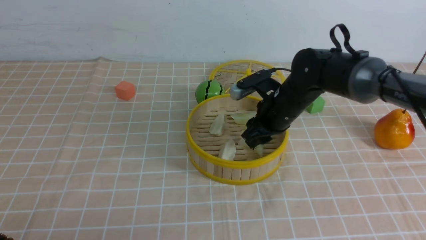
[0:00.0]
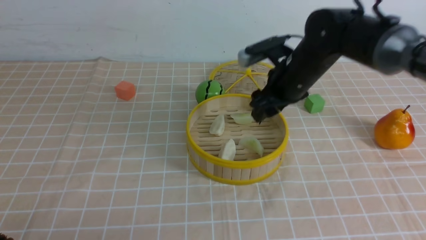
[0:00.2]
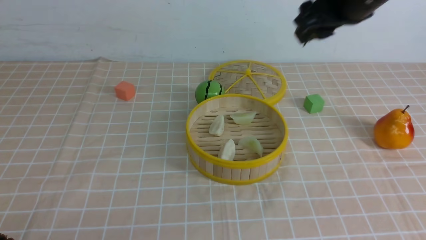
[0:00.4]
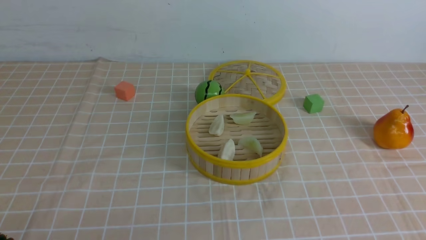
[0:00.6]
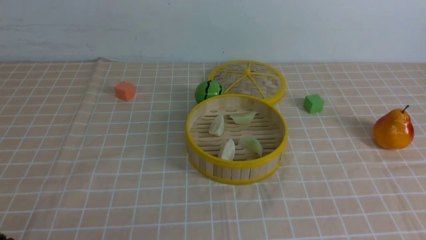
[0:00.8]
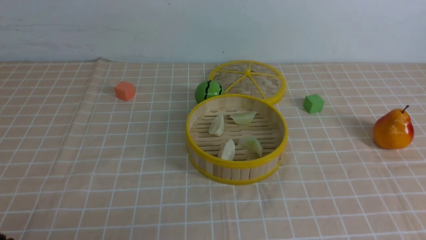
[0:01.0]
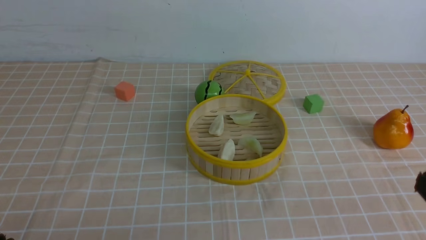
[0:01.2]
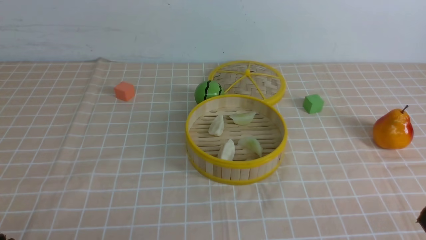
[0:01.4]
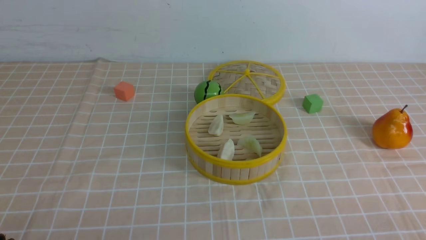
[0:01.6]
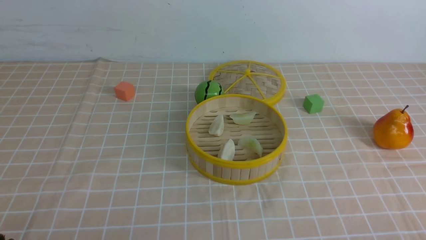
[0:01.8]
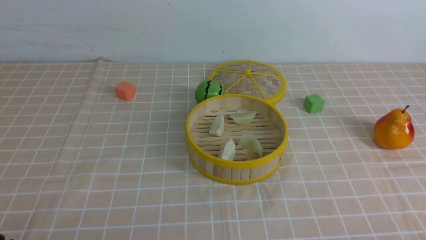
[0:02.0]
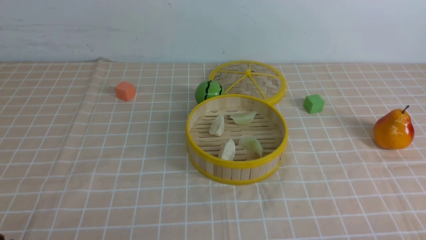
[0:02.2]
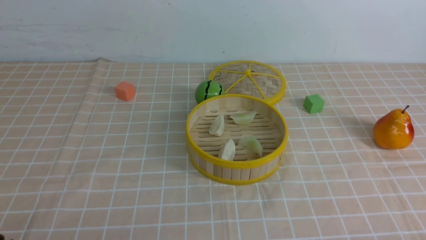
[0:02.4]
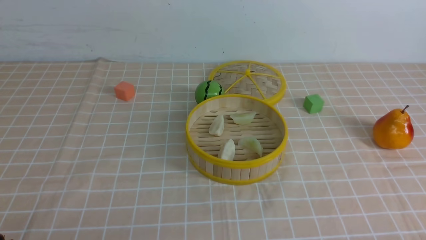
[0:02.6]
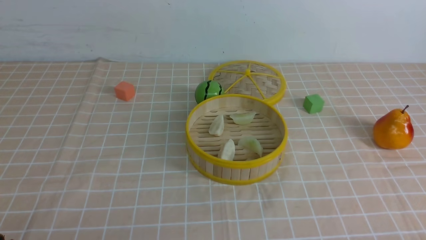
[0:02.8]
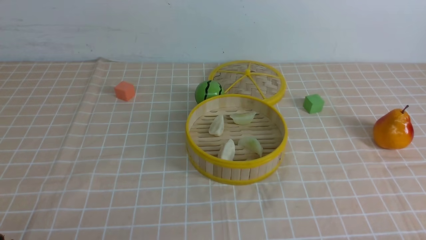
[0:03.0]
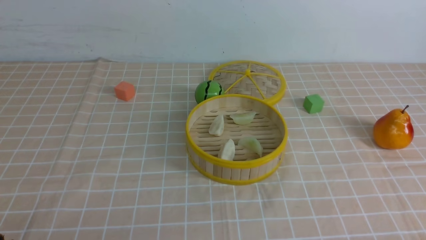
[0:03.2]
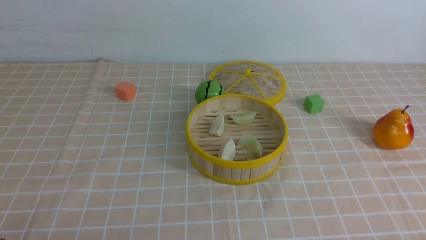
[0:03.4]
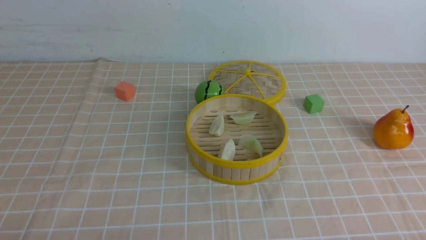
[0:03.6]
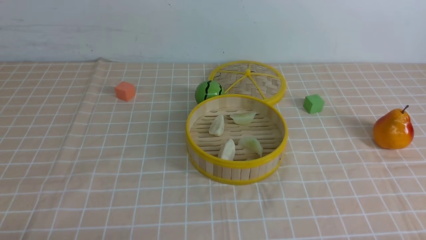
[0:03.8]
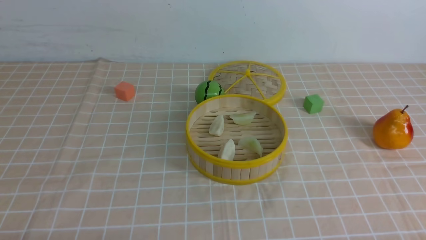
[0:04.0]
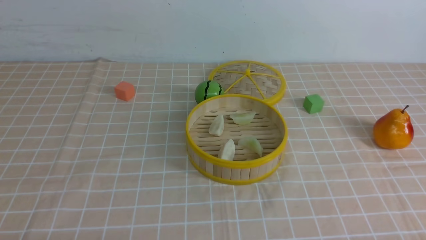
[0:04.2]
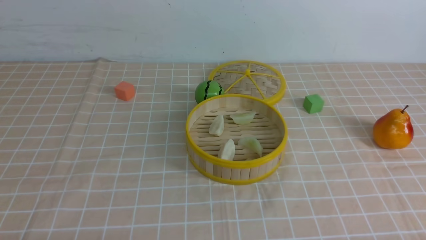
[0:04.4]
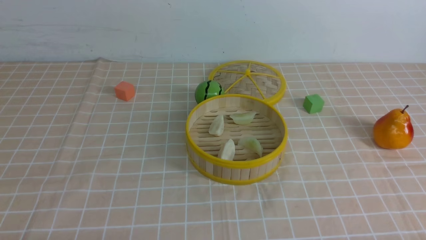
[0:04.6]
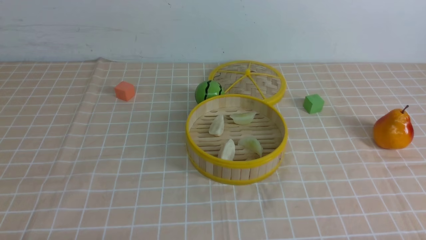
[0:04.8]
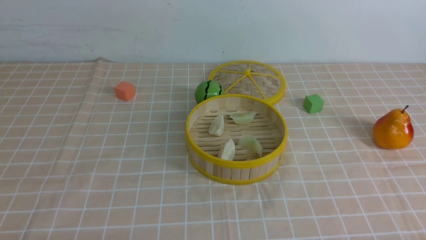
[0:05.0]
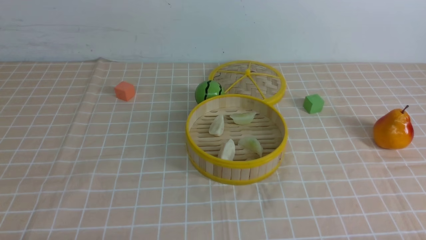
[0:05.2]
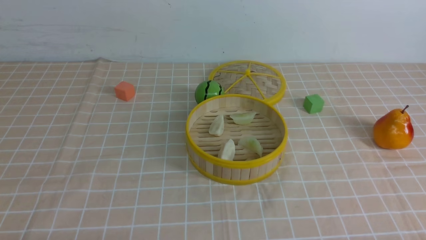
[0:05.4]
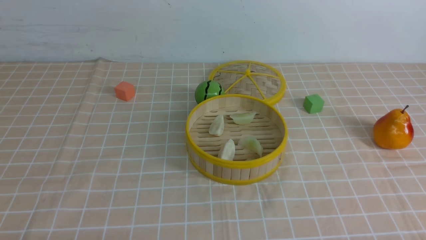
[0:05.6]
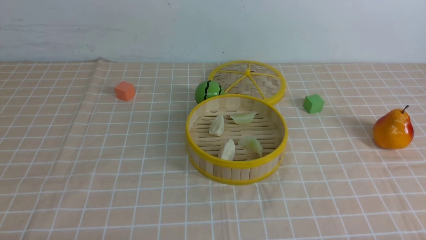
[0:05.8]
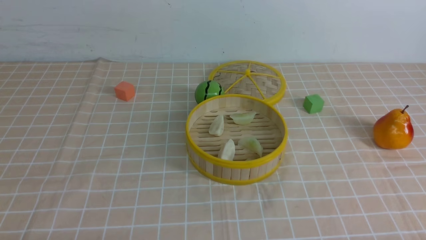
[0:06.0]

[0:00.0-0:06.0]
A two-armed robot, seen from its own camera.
Task of the whole recording: put the dumplings into the steamer on the table with the brown tablecloth.
0:00.0 to 0:01.6: The right gripper travels backward and to the right by roughly 40 cm, and closes.
0:04.4 to 0:06.0: Both grippers stay put.

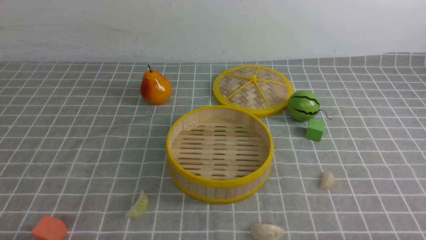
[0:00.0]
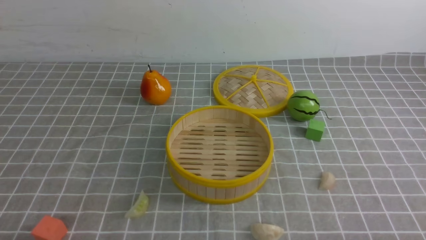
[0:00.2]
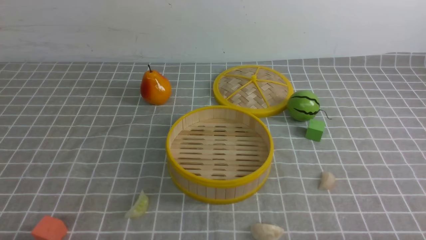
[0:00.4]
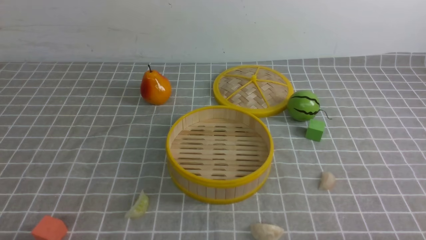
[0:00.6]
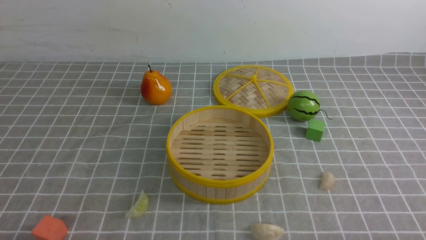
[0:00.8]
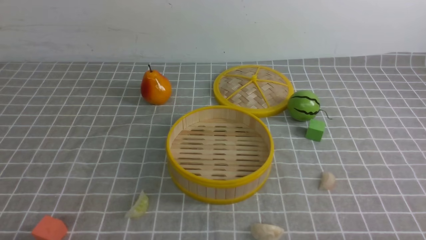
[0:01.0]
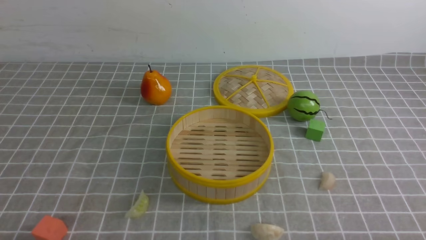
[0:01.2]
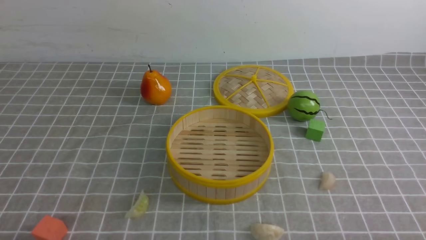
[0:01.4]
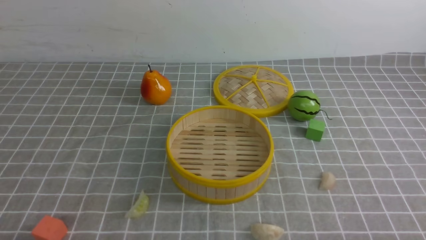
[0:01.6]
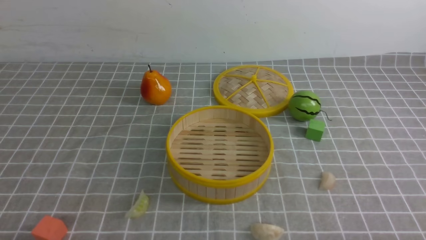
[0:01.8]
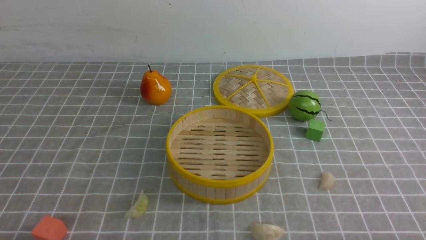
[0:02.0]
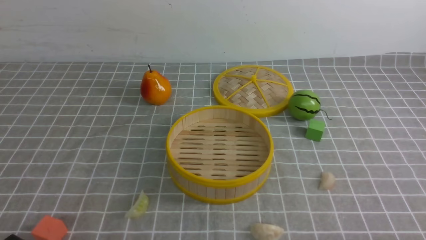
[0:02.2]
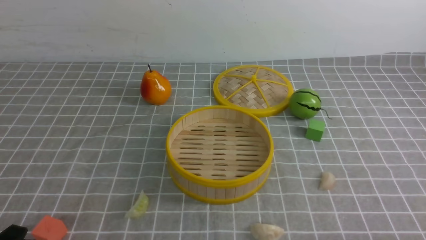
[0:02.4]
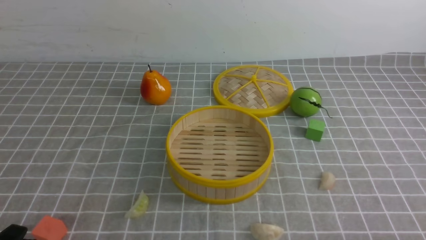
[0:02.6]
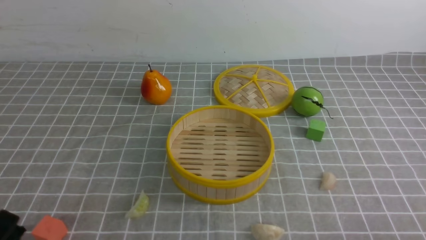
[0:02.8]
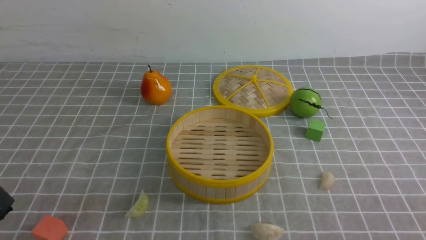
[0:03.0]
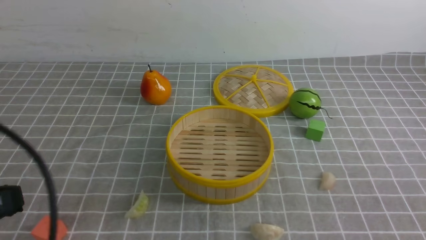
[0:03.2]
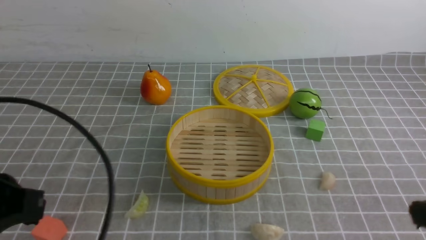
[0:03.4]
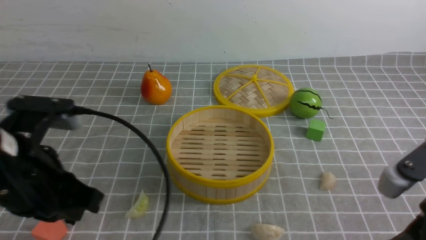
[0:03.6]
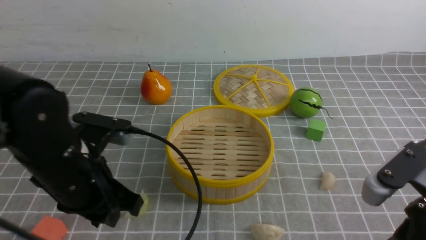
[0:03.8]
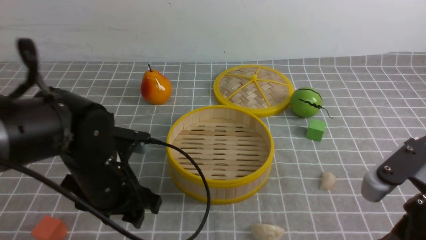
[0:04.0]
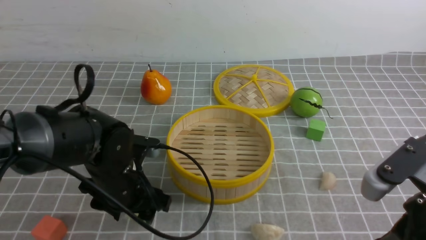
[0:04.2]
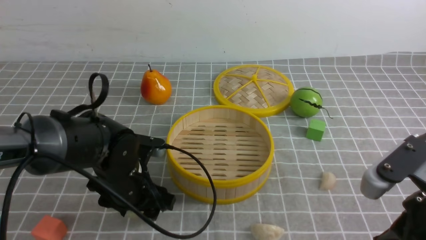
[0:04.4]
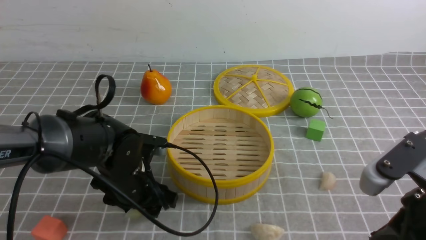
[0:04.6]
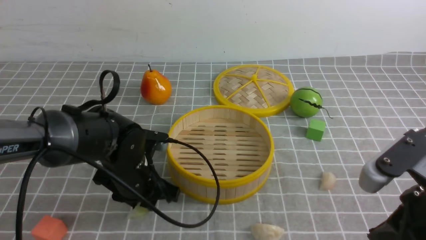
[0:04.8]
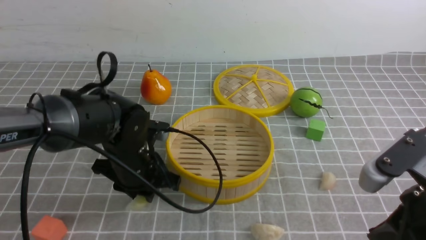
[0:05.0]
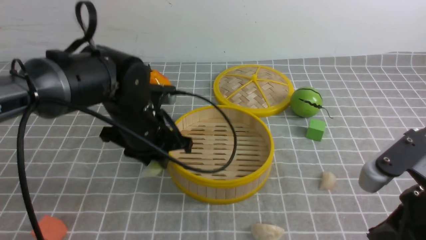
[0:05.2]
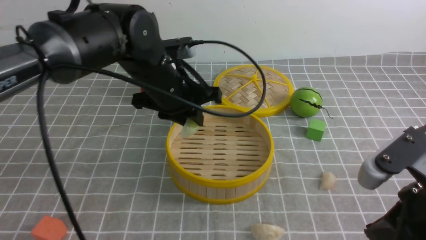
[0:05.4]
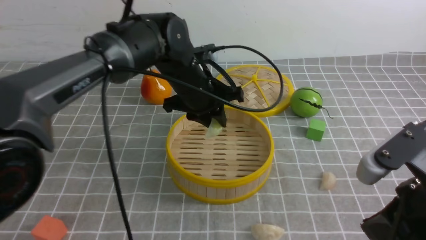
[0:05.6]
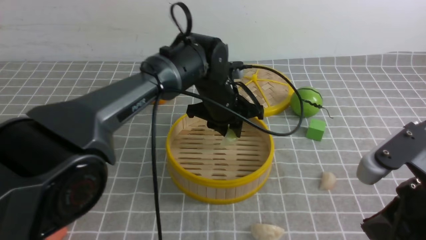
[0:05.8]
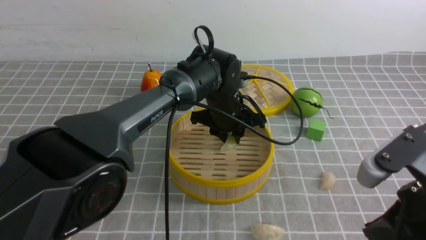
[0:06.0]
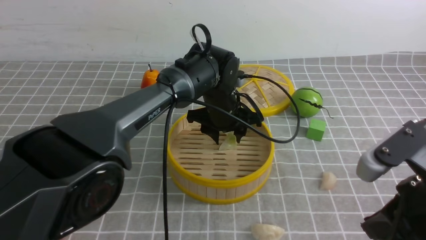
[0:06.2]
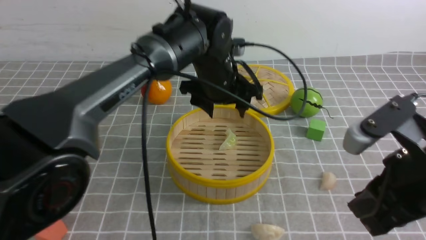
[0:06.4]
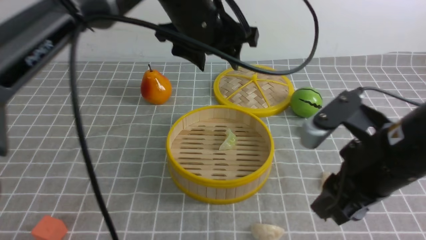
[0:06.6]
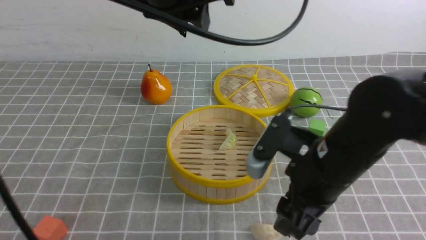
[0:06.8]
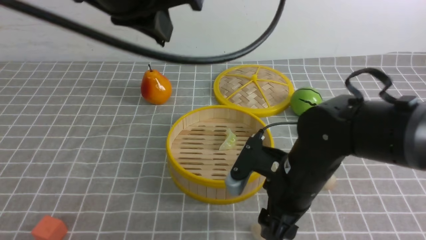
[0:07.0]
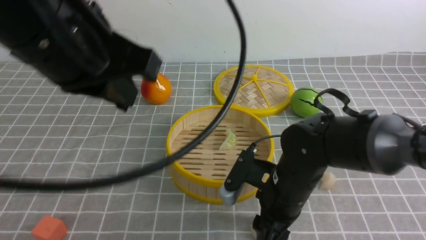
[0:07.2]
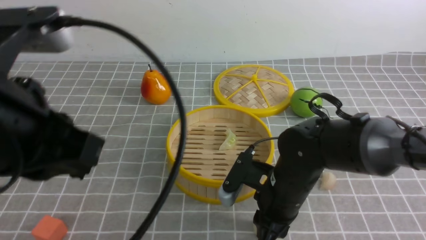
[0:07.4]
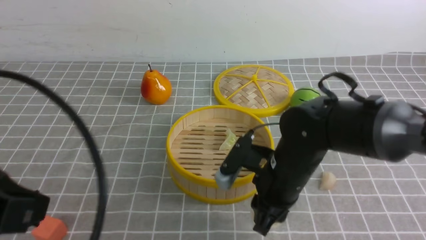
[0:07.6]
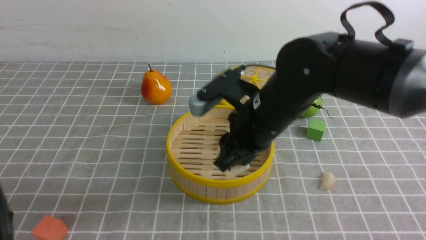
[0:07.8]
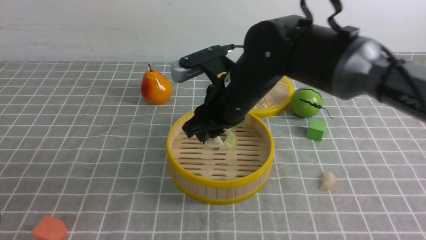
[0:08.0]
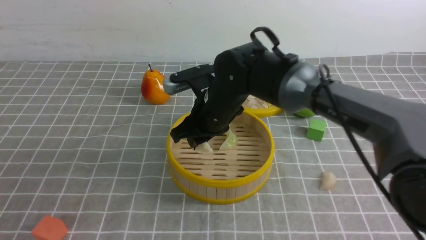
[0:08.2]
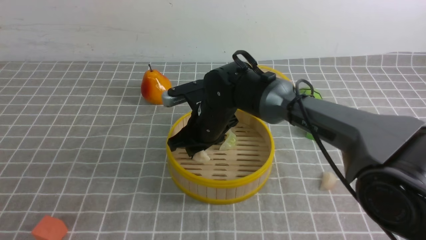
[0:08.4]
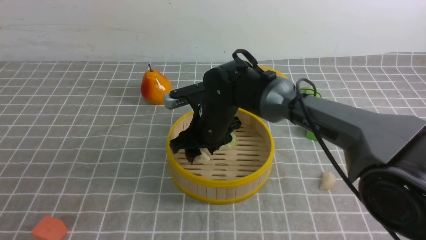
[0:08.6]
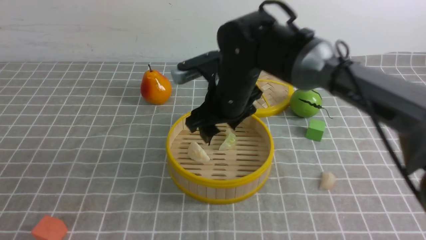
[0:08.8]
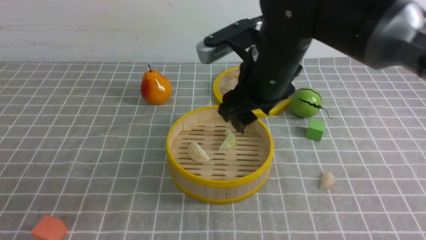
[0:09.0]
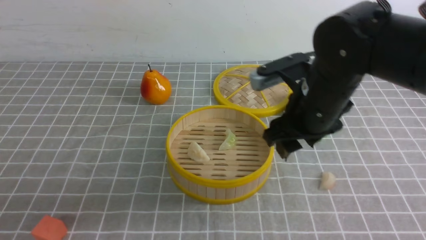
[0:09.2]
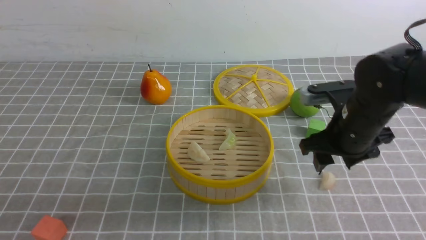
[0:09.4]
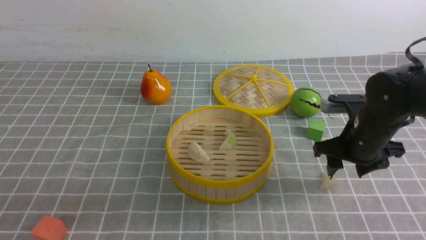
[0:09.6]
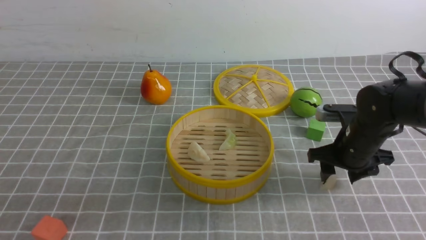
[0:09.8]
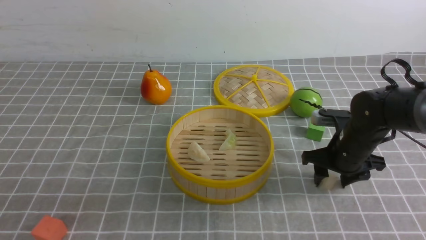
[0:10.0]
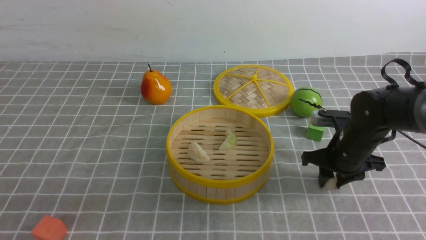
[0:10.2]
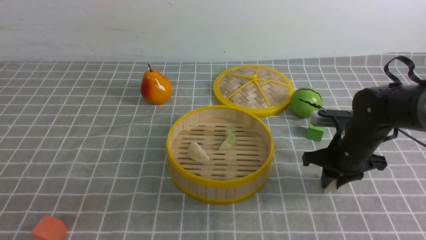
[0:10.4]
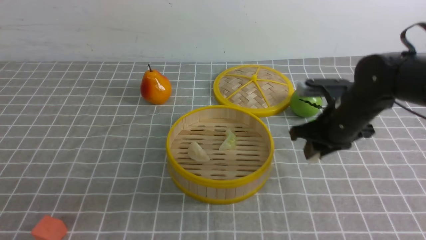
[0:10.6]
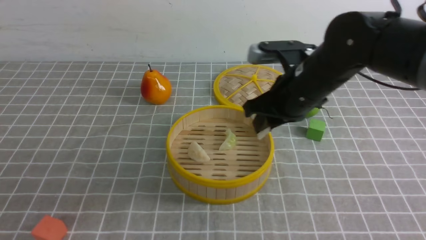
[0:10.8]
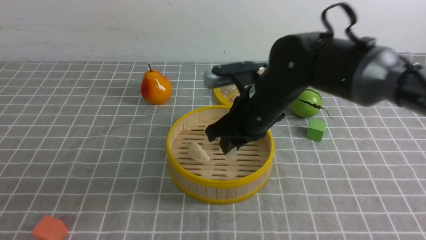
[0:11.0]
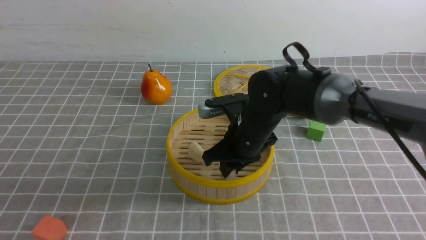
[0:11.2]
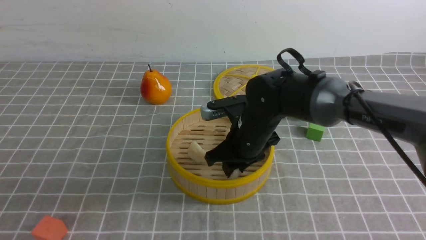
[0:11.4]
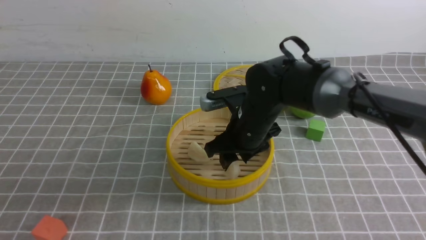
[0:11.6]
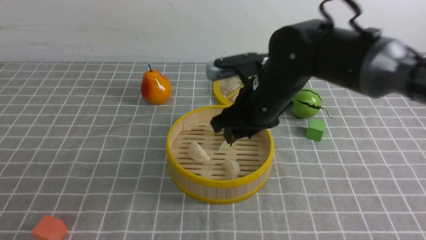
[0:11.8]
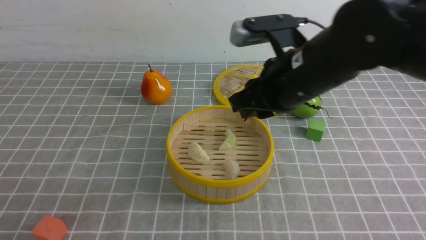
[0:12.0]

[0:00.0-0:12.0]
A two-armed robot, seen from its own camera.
Task of the whole recording: put the dumplings into the steamer on the table with the grey tablecloth.
Step, 0:00.0 to 0:05.0: use the left arm to grab a dumpling.
Step, 0:05.2 to 0:06.6: use the left arm to put the dumpling into the steamer.
Step, 0:06.8 to 0:07.4: use the right arm to grab a dumpling.
Step, 0:07.6 to 0:08.6: use the right arm to put the dumpling into the steamer.
Step, 0:08.8 to 0:10.4: use the right arm to grab a dumpling.
Step, 0:10.6 to 0:11.8: use the right arm to put the dumpling into the steamer.
0:00.0 to 0:01.6: Neither gripper changes place.
0:03.0 to 0:04.4: The right gripper travels forward and to the left by roughly 10 cm. Meanwhile the left gripper shifts roughly 30 cm forward, downward and to the right, and opens.
0:04.4 to 0:06.0: The left gripper moves to the right and forward, approximately 20 cm, and closes its fingers.
0:06.0 to 0:07.6: The right gripper heads to the left, forward and downward, covering about 20 cm, and opens up; the left gripper shifts some 40 cm backward, to the left and upward, and closes up.
0:07.6 to 0:09.0: The left gripper changes place by some 5 cm; the right gripper heads upward and forward, covering roughly 10 cm, and opens its fingers.
0:09.0 to 0:10.4: The right gripper shifts approximately 20 cm to the right and downward, and closes its fingers.
0:10.4 to 0:12.0: The right gripper is displaced upward, to the left and backward by roughly 20 cm; the left gripper shifts some 5 cm downward.
